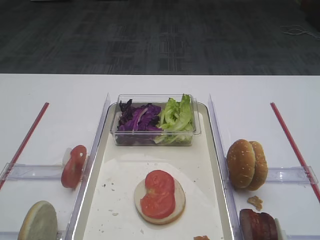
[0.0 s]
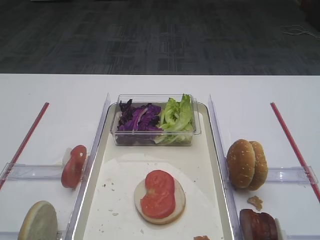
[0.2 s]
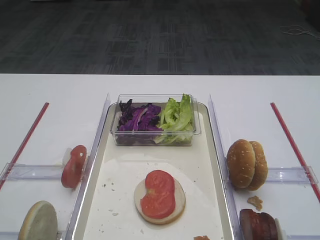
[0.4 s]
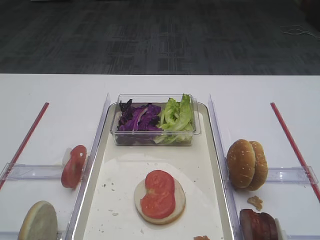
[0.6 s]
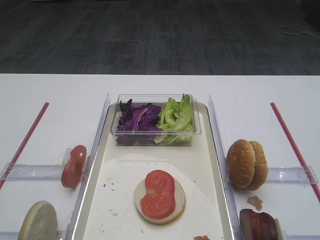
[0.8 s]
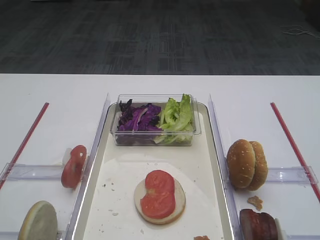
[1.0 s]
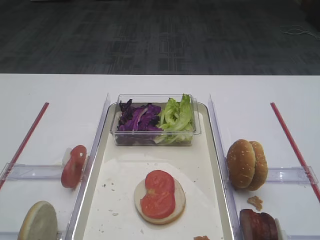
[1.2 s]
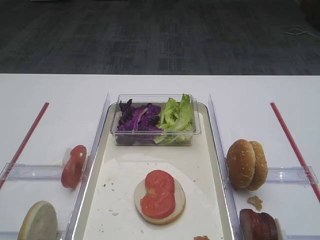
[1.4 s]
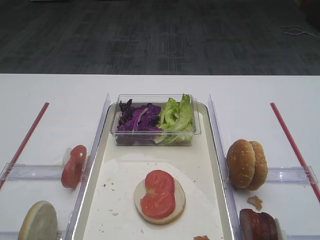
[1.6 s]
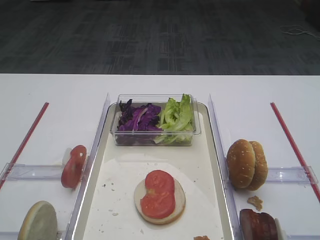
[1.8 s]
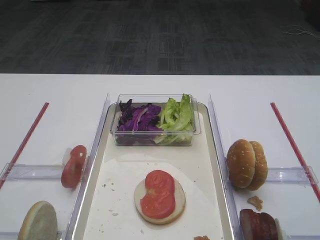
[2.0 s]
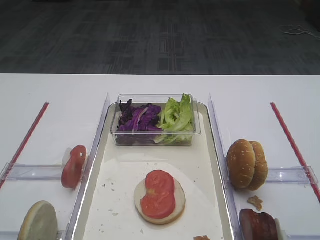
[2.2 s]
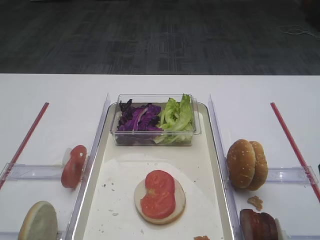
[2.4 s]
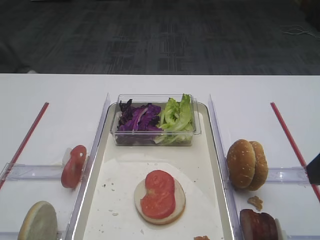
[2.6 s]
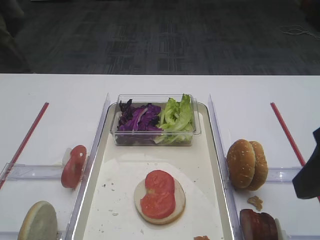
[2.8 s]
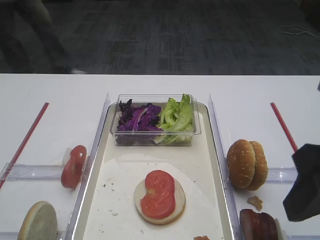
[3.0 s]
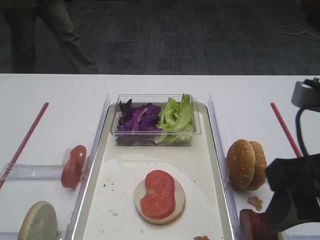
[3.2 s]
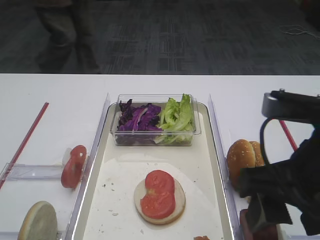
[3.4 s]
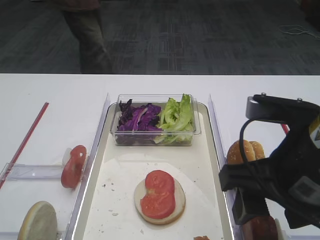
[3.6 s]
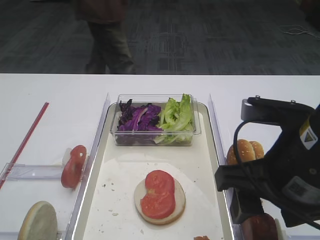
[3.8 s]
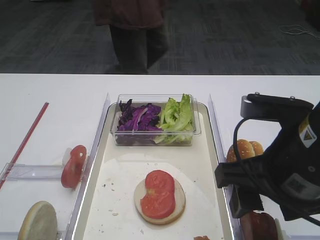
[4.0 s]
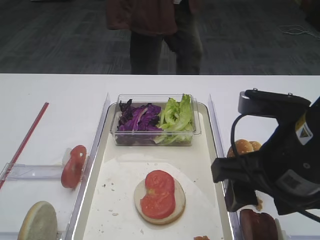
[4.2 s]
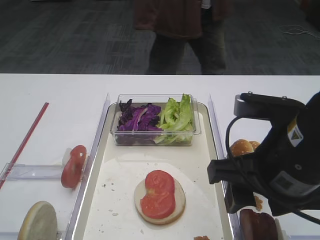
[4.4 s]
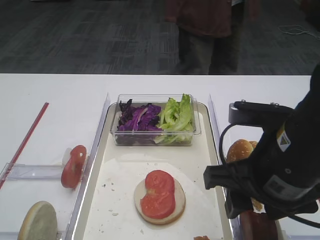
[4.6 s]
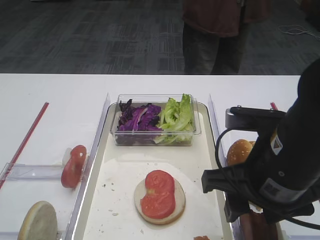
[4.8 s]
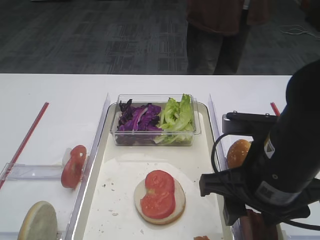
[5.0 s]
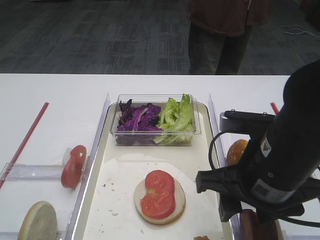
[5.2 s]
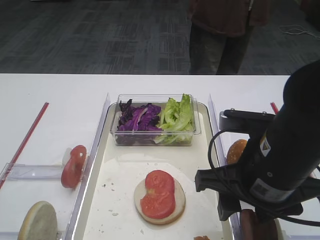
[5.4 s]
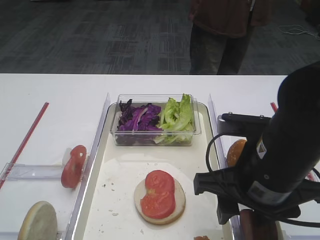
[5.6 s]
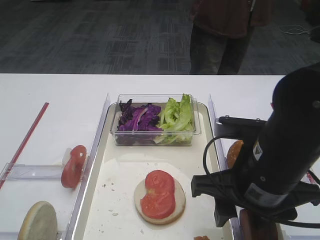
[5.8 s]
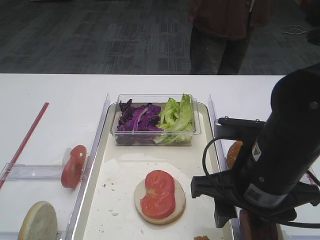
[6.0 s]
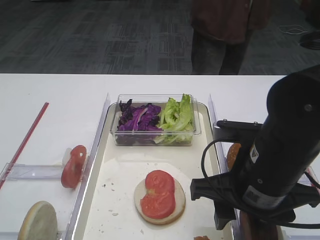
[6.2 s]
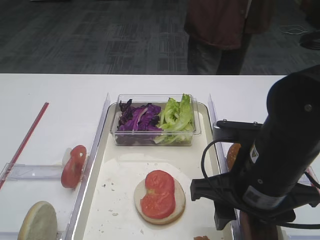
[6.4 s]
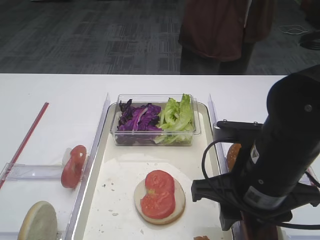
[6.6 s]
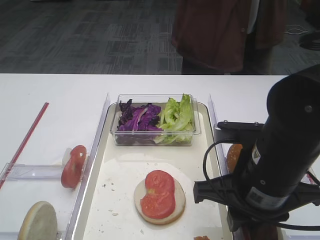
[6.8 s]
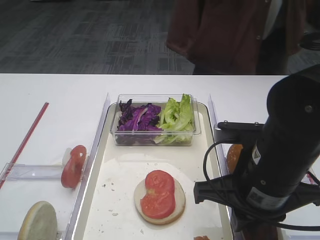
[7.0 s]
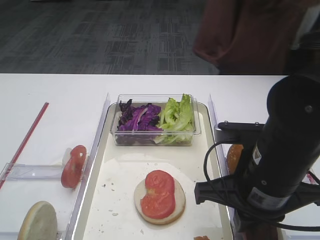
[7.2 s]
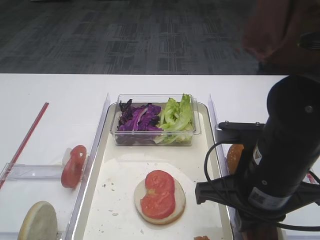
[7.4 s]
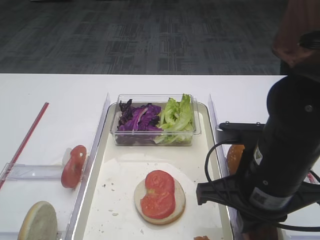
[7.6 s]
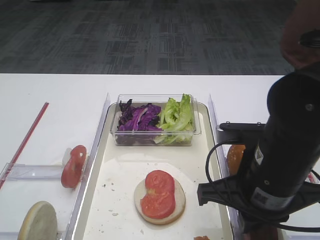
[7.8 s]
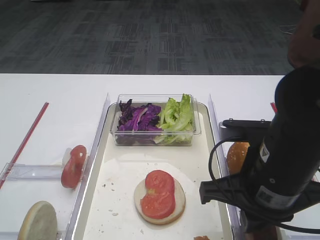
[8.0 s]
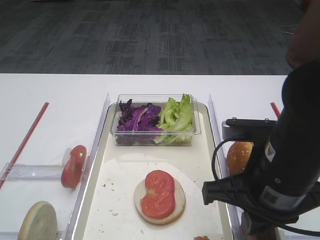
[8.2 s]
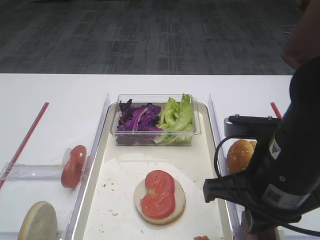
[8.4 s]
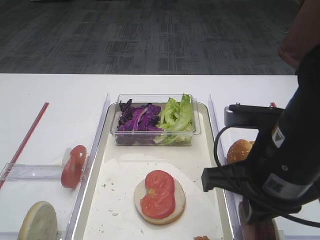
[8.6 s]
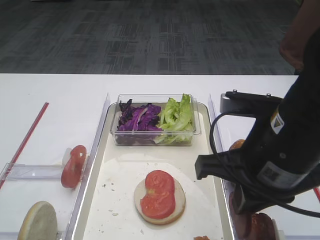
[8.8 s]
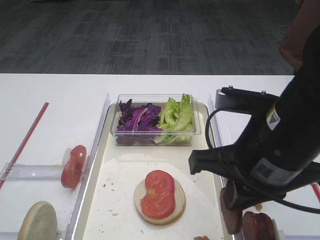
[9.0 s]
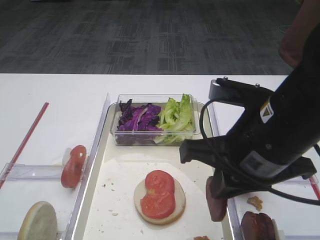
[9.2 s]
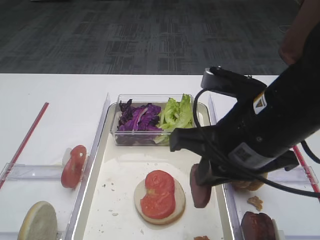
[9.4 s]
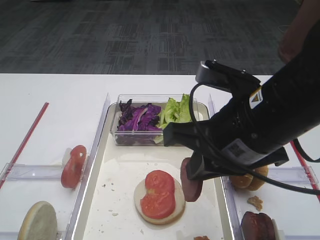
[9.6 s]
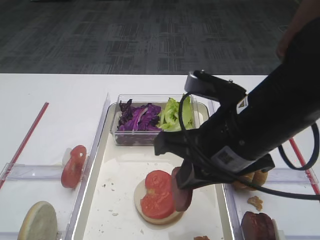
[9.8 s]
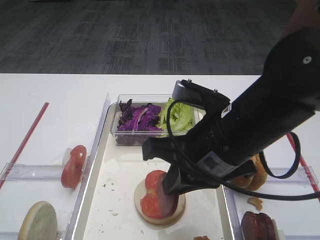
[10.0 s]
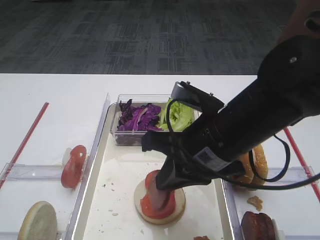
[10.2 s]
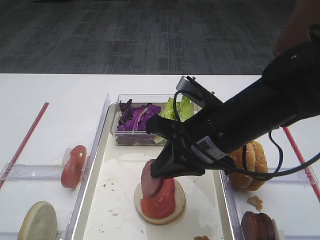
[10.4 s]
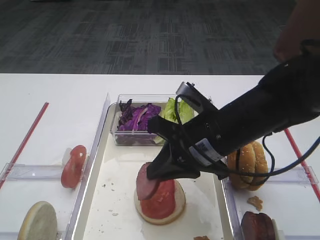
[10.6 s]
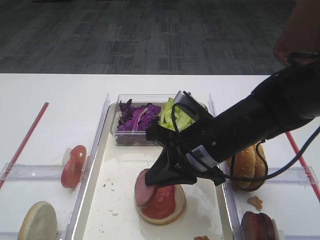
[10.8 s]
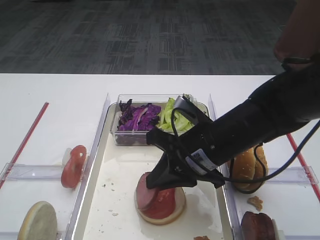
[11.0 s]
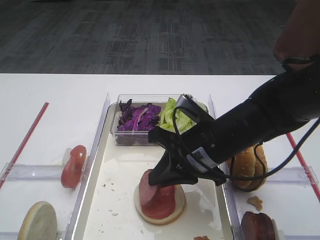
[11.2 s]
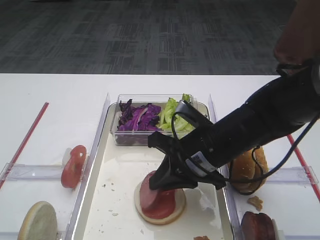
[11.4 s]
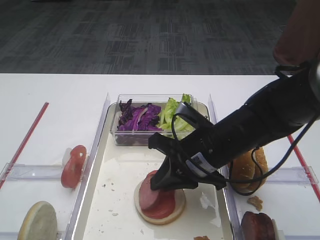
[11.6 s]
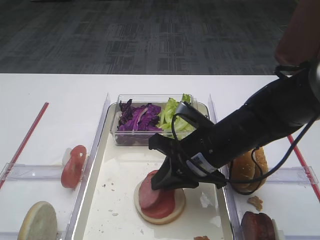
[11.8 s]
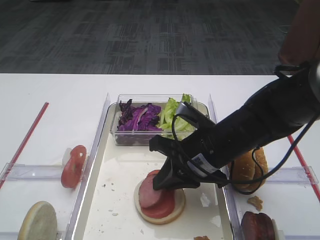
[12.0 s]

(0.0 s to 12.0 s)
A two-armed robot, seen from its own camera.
Step, 0.0 s - 8.8 s: Pick up the cutlet with the right gripper.
1.6 s - 3.0 s: The right gripper moves forward and to the left, approximately 10 cm.
3.0 s - 4.4 s: The right gripper heads to the left and downward, covering roughly 10 cm.
4.4 s - 6.0 s: The grippers move only a little.
6.0 s - 7.6 s: The right gripper closes up.
7.6 s - 9.0 s: The right gripper goes roughly 5 cm upward.
9.0 s - 10.4 s: The right gripper moves forward, roughly 5 cm.
10.4 s - 12.0 s: The right gripper travels downward by roughly 5 cm.

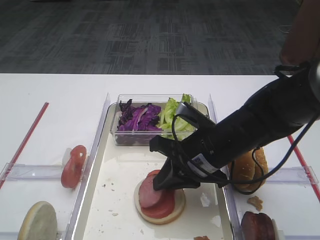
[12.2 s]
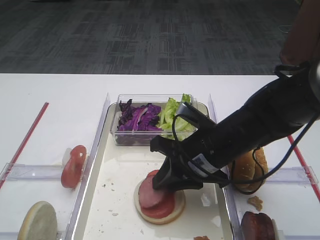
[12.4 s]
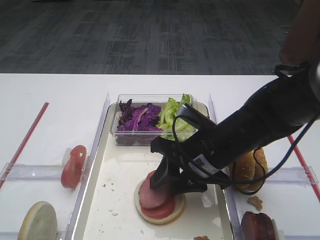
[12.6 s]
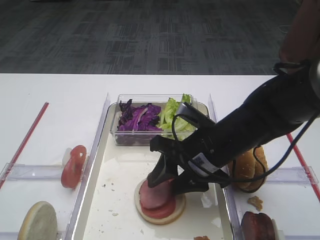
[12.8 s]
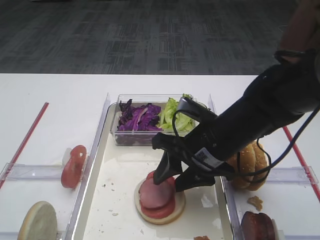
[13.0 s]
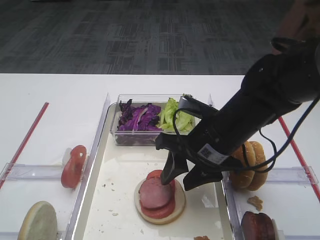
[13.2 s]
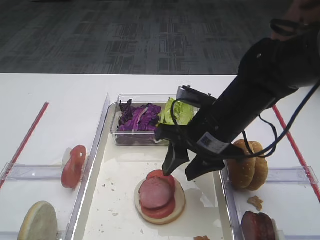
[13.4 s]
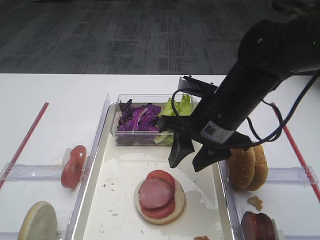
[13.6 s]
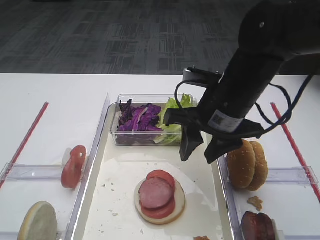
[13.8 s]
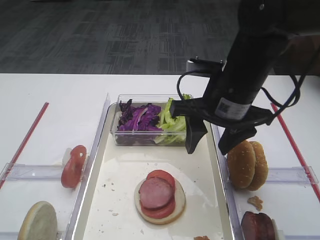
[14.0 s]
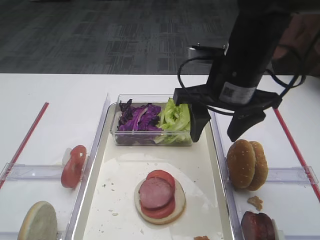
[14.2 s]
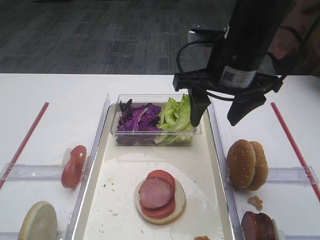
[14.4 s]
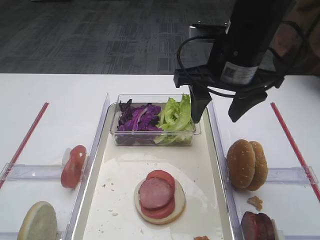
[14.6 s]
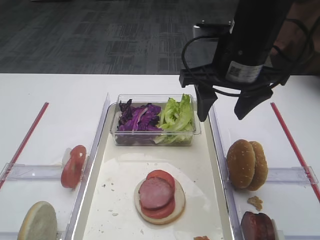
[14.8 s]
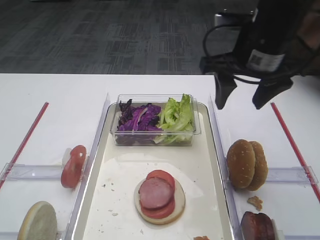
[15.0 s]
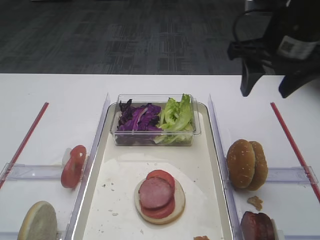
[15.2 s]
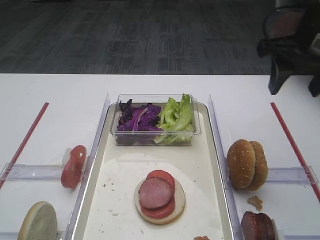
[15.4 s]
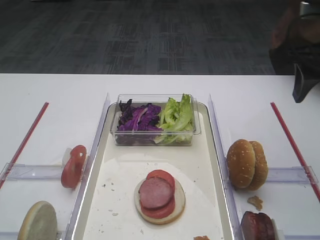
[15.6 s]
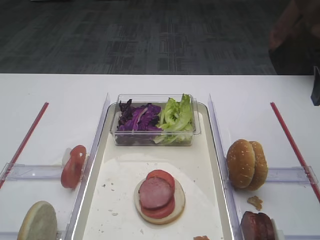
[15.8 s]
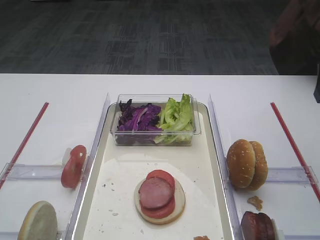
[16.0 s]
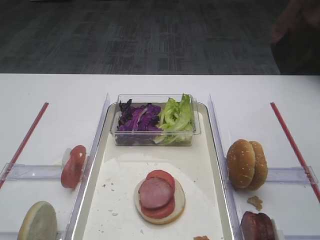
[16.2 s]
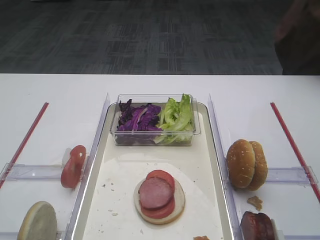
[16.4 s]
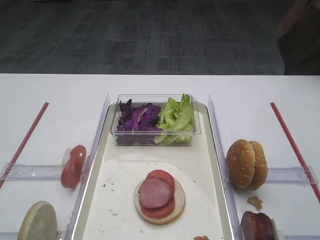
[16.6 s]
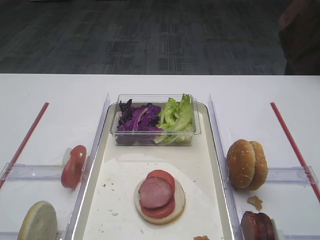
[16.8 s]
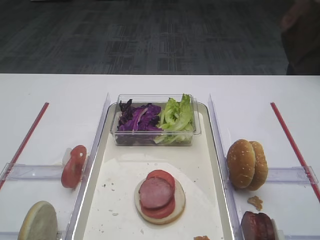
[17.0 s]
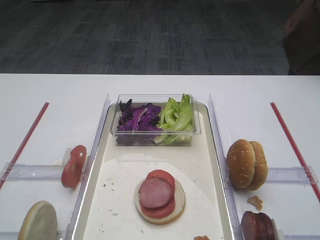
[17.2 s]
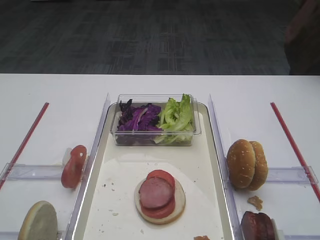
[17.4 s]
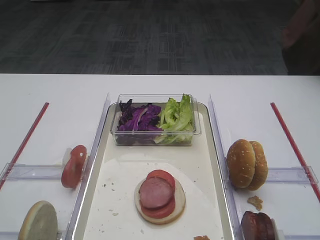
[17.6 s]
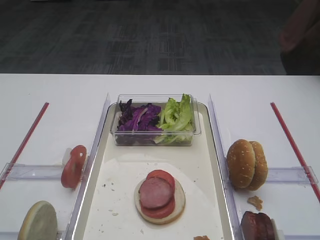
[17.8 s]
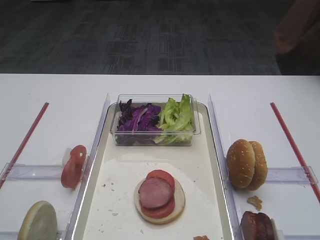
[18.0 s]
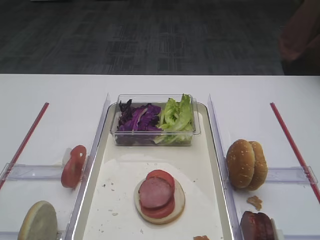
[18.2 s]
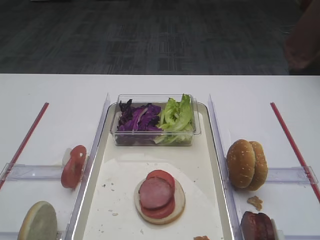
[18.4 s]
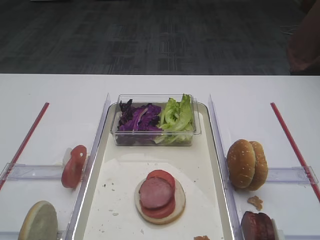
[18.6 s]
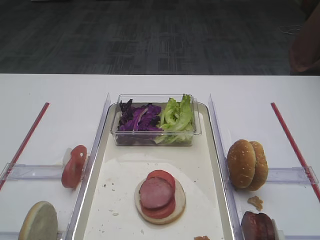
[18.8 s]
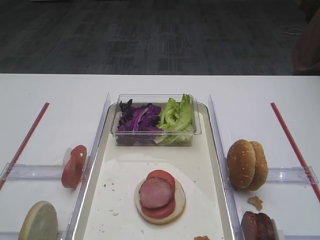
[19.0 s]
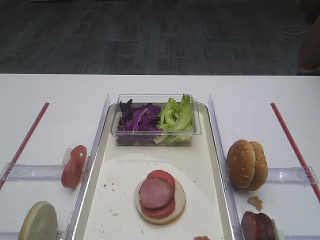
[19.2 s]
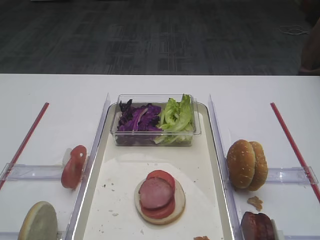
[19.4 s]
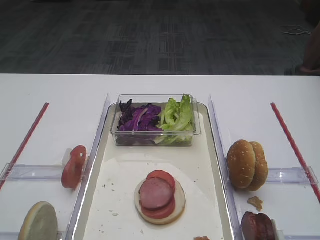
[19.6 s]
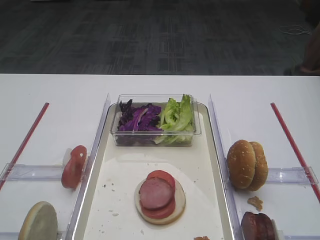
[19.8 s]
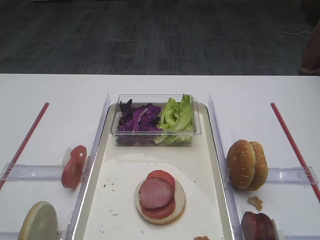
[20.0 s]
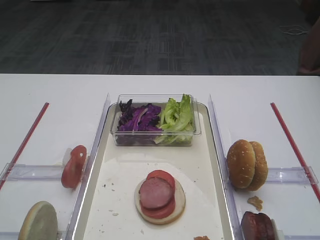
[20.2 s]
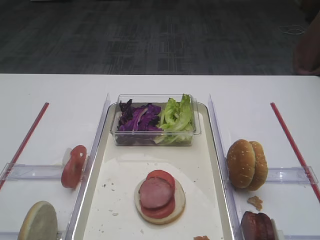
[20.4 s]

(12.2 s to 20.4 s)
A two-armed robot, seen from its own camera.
12.2 s - 13.8 s: The right gripper heads upward, covering some 5 cm, and opens.
13.8 s - 15.4 s: The right gripper goes some 15 cm to the right and upward.
15.4 s - 17.2 s: The right gripper goes some 25 cm backward.
18.8 s - 20.4 s: The two grippers keep their place.

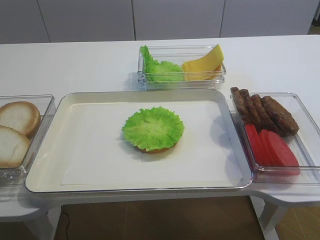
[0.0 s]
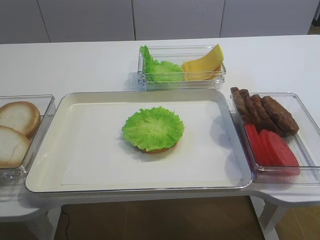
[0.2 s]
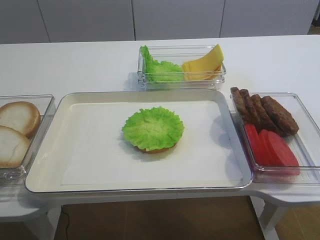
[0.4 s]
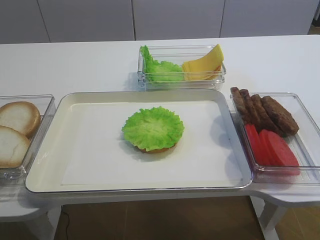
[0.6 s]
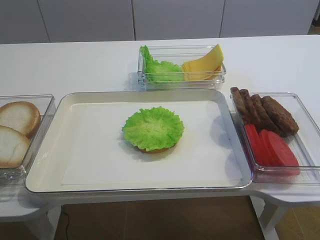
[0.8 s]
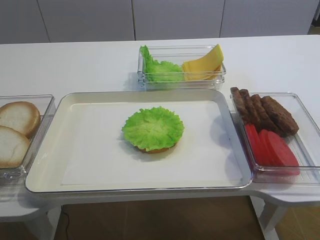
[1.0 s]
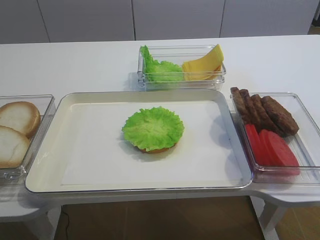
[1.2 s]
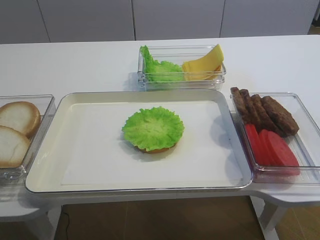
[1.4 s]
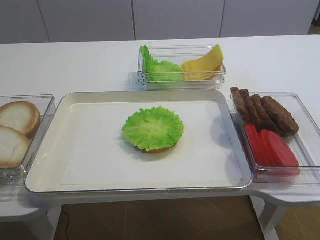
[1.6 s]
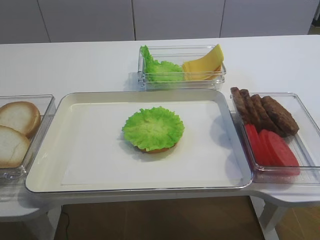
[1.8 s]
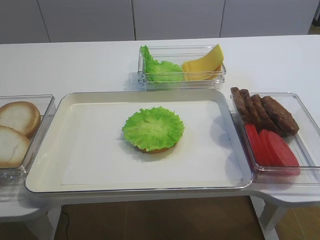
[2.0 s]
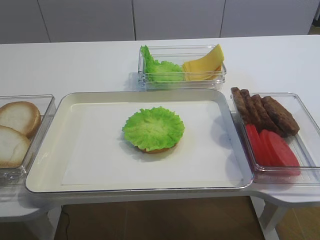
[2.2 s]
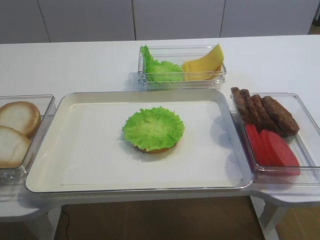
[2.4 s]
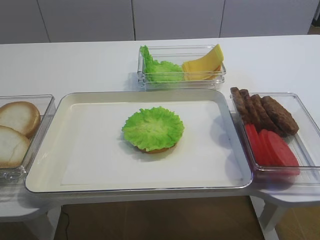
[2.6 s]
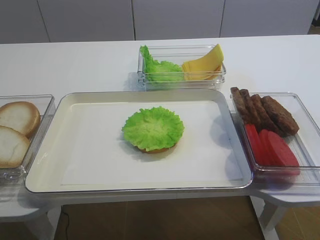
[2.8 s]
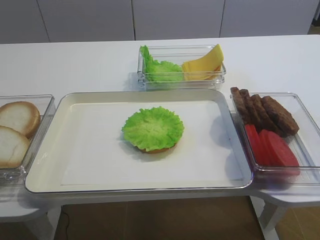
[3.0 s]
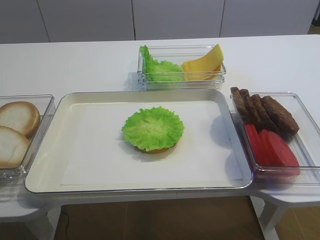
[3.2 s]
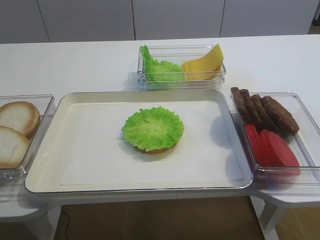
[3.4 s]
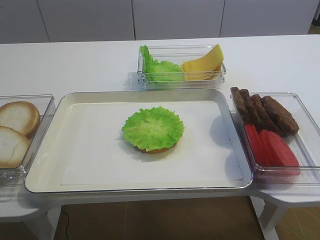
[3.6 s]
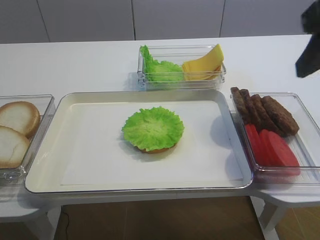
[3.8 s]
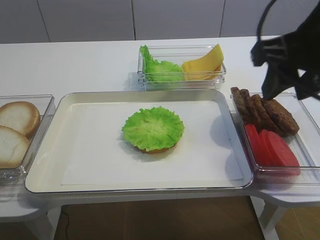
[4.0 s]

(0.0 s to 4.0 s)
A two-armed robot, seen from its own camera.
2.6 s - 4.0 s: The right gripper travels forward and to the left by some 25 cm.
